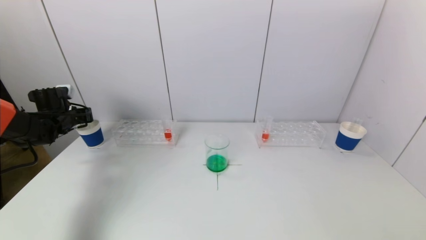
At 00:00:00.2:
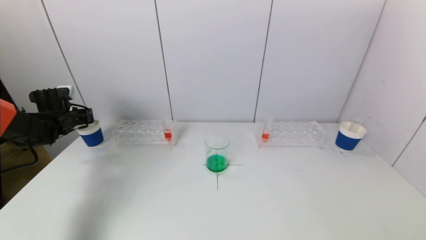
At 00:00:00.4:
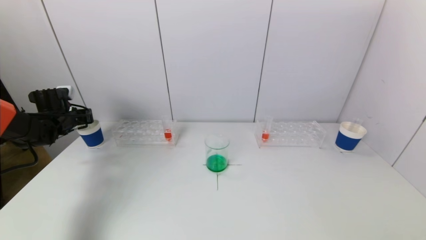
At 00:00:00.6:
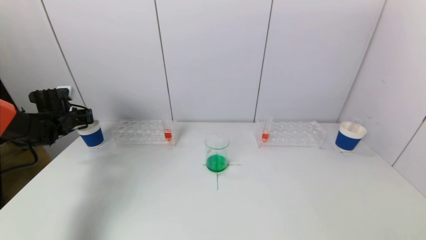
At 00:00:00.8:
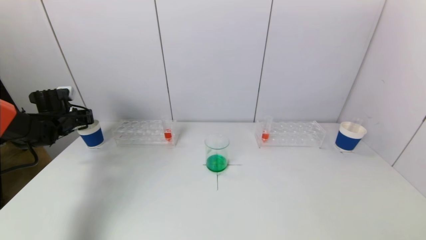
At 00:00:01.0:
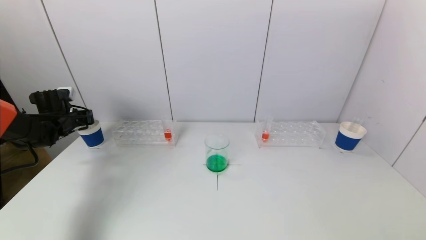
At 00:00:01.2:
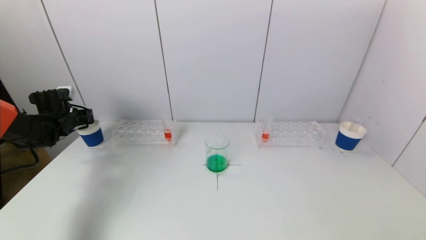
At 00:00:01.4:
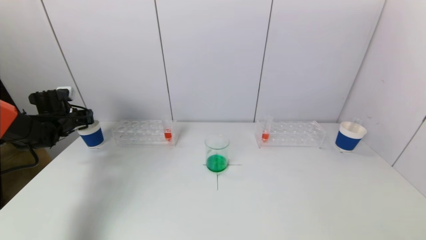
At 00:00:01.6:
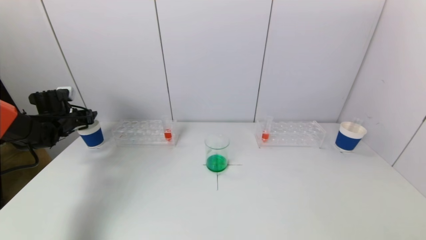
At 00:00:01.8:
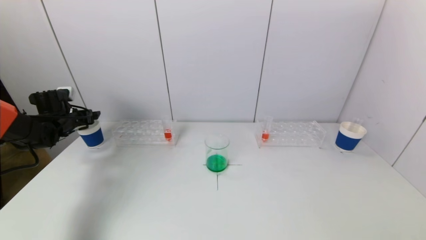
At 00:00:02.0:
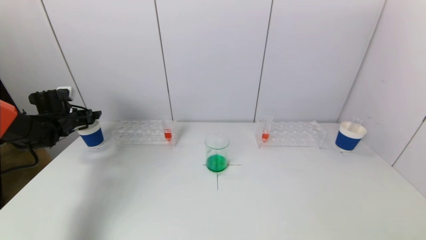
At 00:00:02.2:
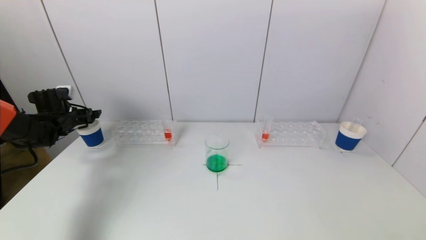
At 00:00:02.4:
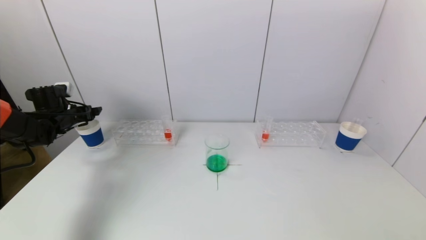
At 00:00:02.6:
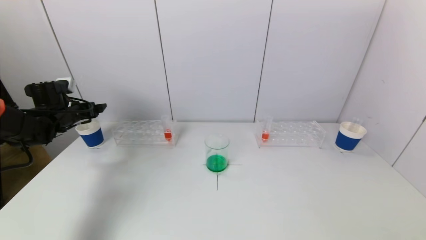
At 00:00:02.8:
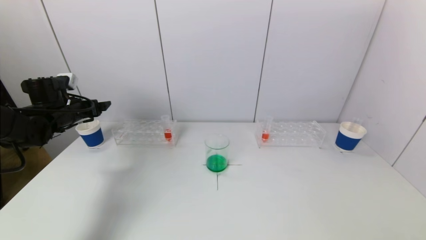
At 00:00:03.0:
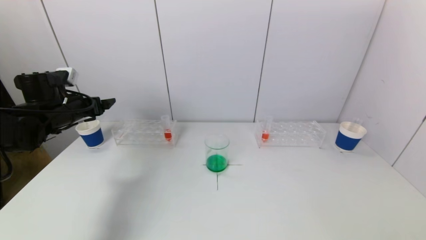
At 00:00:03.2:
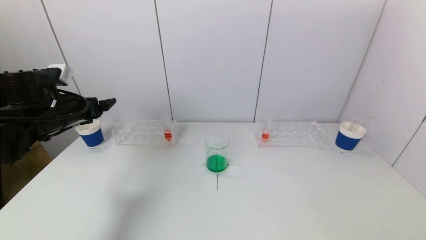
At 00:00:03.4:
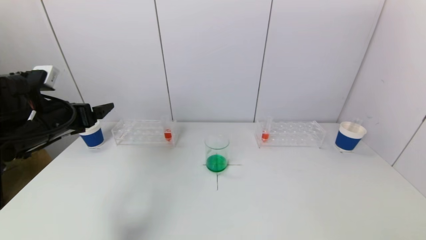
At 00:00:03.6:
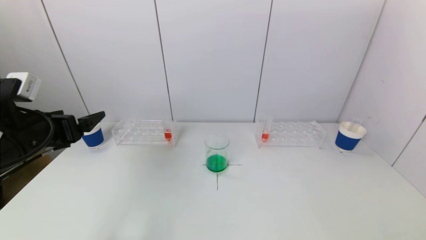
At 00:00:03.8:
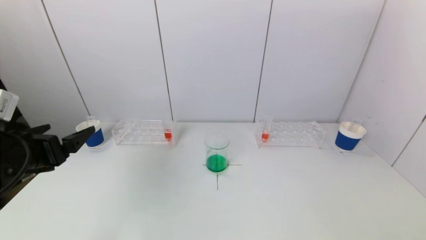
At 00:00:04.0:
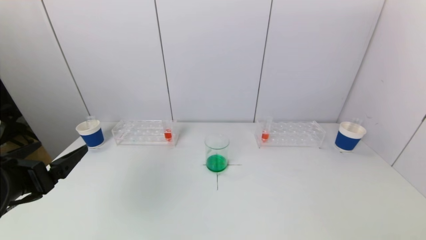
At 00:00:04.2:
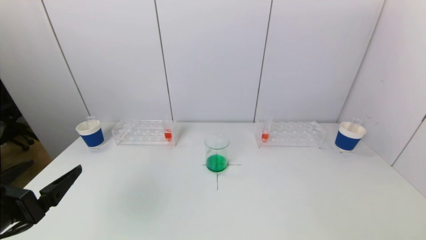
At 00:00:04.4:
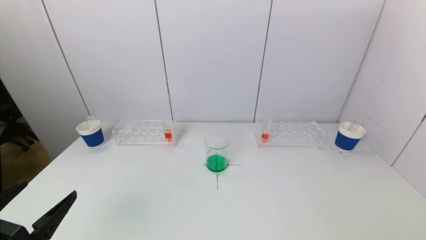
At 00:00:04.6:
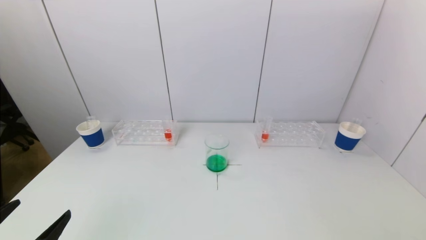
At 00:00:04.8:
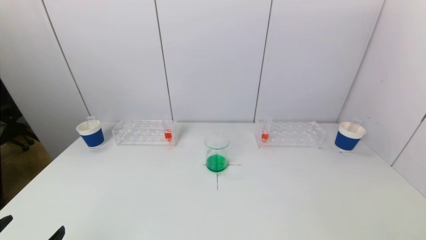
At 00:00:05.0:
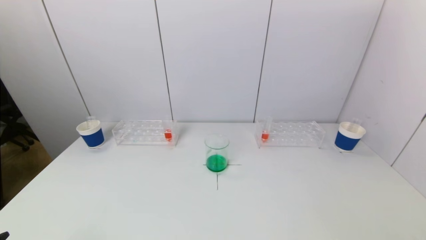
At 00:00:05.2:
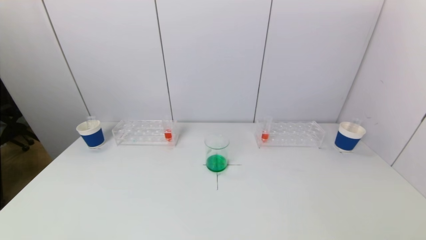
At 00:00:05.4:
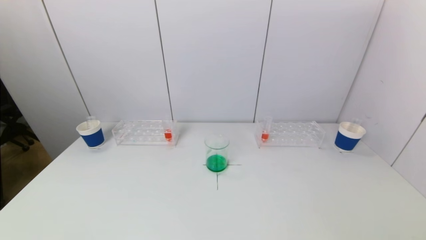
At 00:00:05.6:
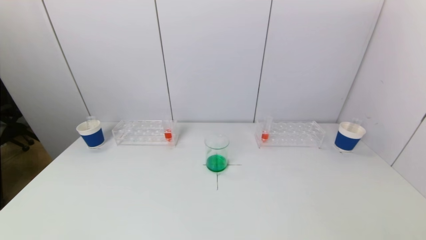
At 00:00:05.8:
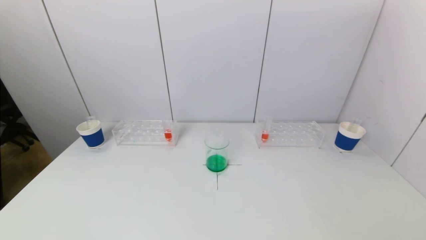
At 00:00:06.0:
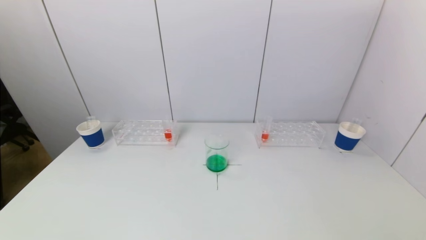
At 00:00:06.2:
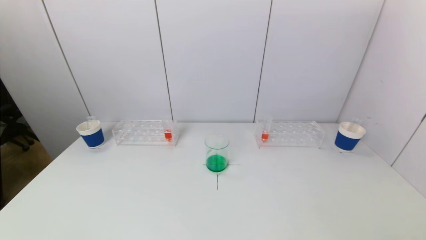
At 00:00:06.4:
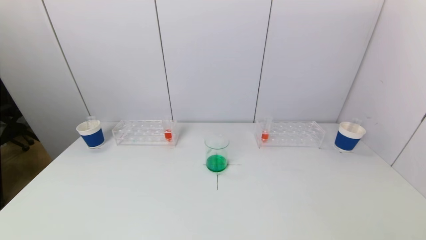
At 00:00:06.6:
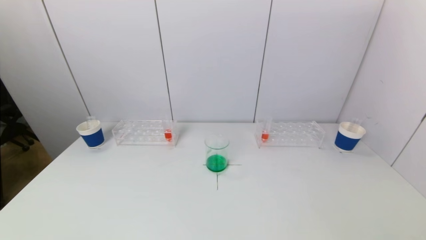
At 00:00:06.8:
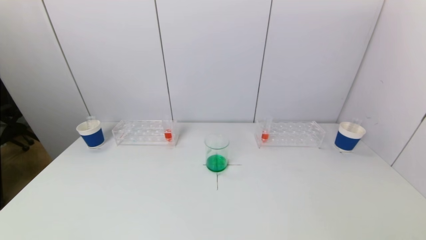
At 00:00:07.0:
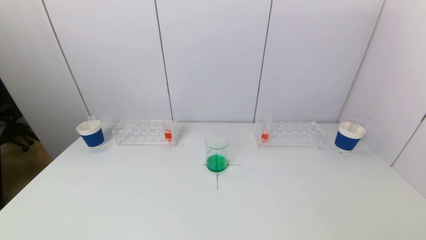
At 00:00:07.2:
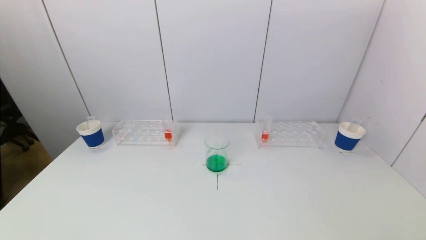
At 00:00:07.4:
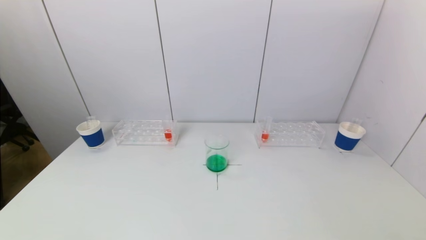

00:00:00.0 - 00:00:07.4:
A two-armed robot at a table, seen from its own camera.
Task of the whole recording: pick up a test tube with pigment on left test tube rack and a test tube with pigment on right test tube rack by grippers and pour them into the beaker.
00:00:00.0 - 00:00:01.4: Both grippers stay put.
00:00:01.4 - 00:00:03.0: The left gripper travels to the right, backward and upward by some 15 cm, and opens.
00:00:03.0 - 00:00:04.4: The left gripper heads backward, covering some 30 cm.
00:00:04.4 - 00:00:06.0: The left gripper shifts approximately 10 cm backward and downward.
00:00:06.0 - 00:00:07.4: The two grippers keep their place.
